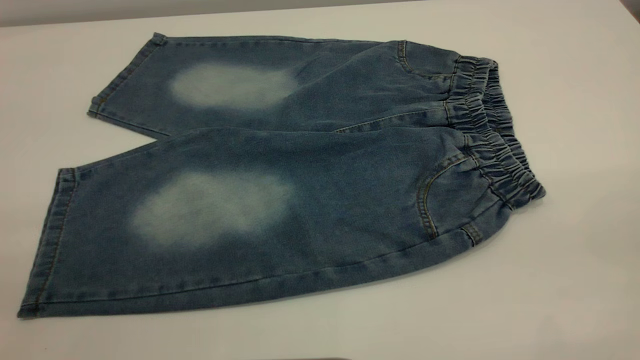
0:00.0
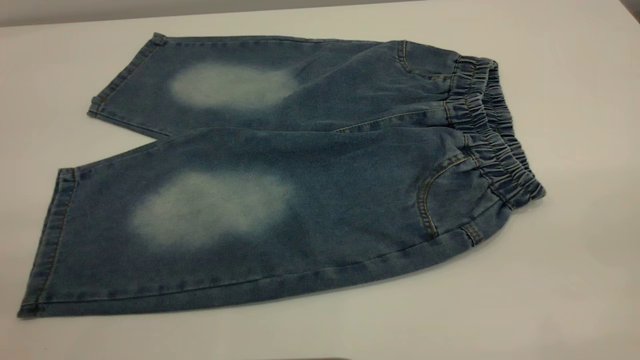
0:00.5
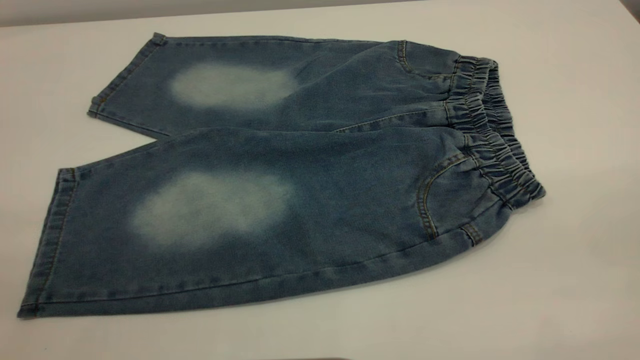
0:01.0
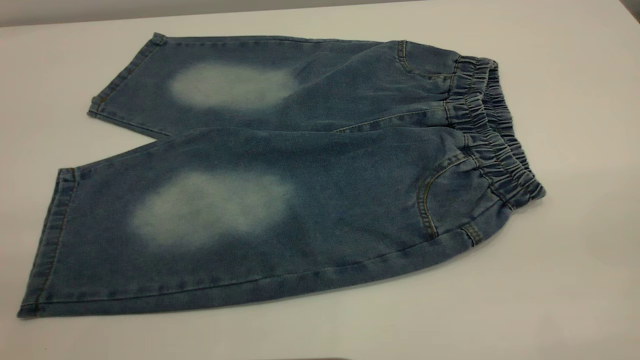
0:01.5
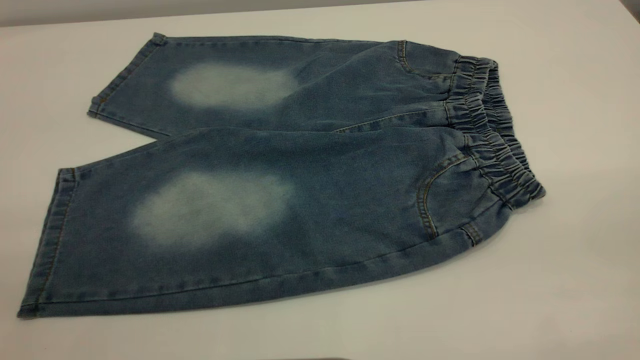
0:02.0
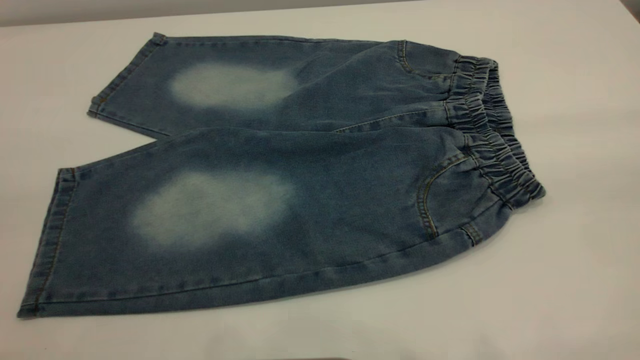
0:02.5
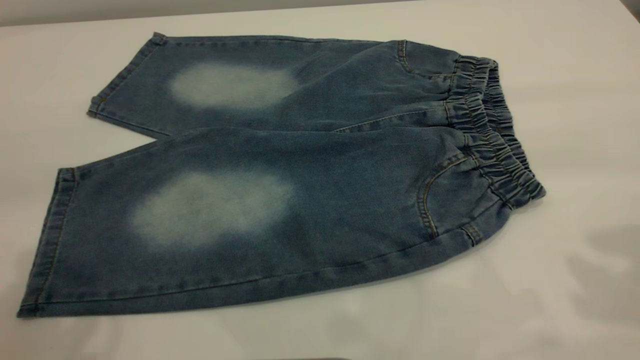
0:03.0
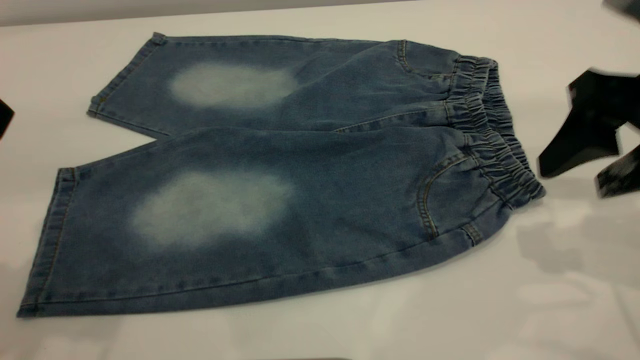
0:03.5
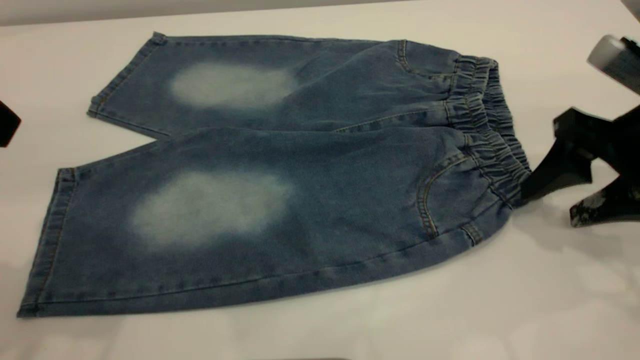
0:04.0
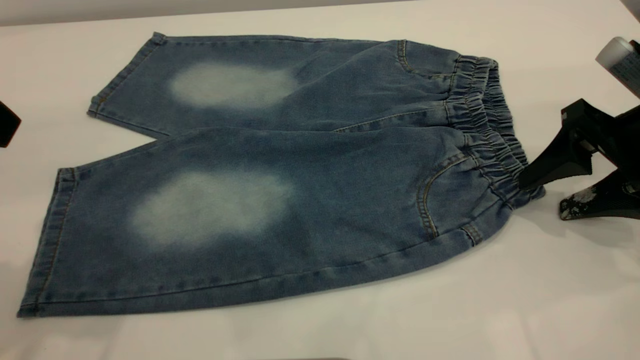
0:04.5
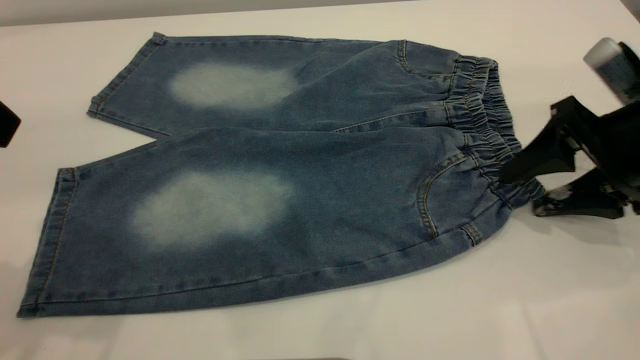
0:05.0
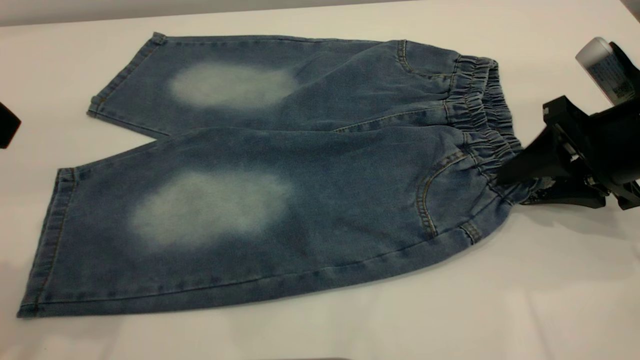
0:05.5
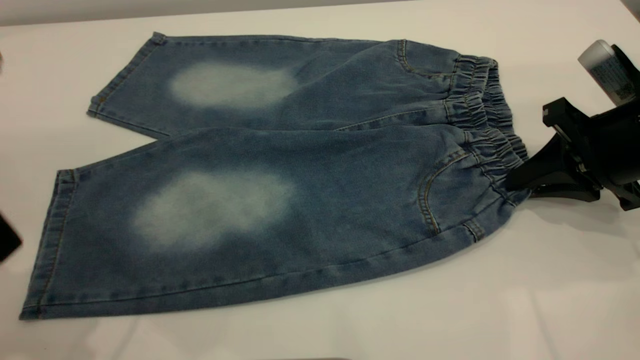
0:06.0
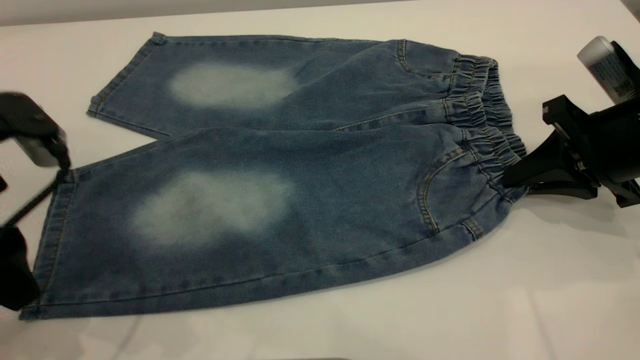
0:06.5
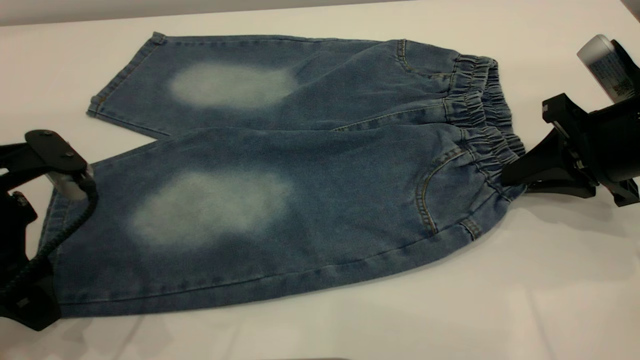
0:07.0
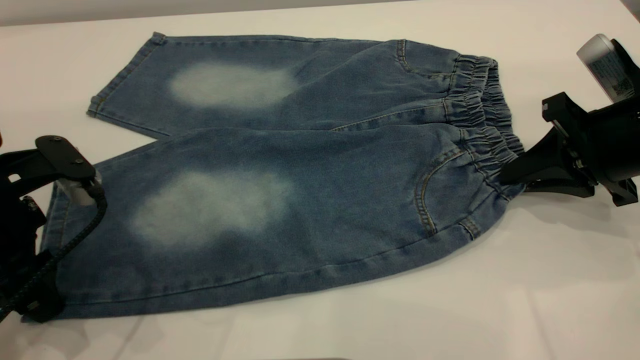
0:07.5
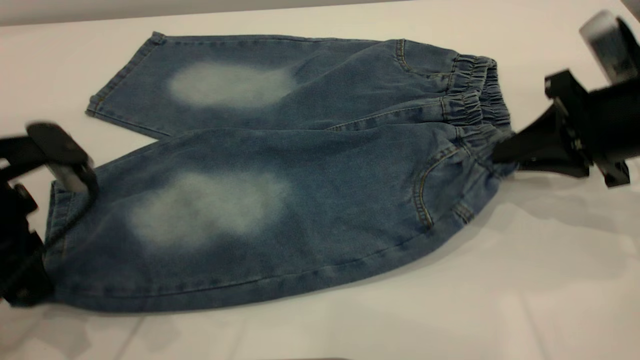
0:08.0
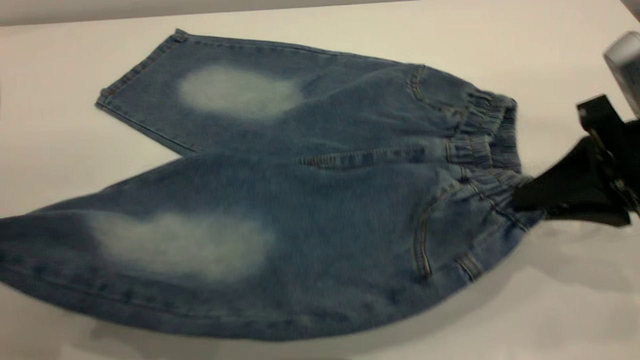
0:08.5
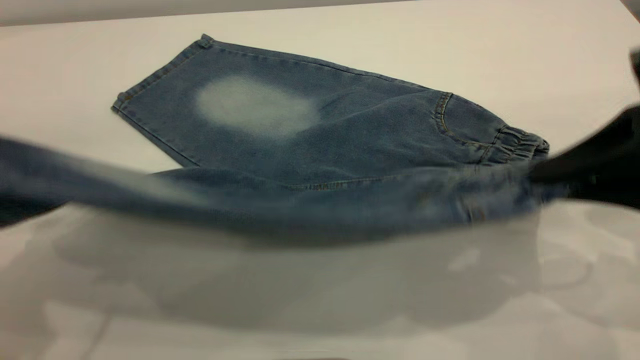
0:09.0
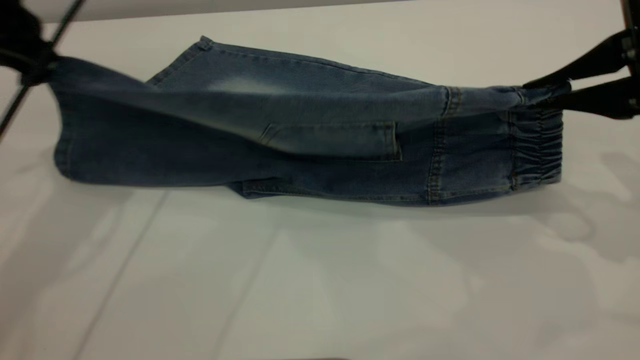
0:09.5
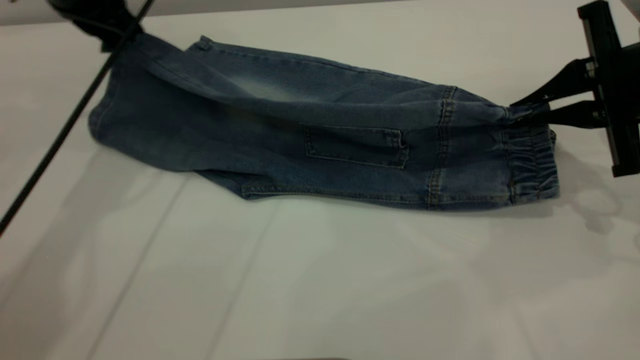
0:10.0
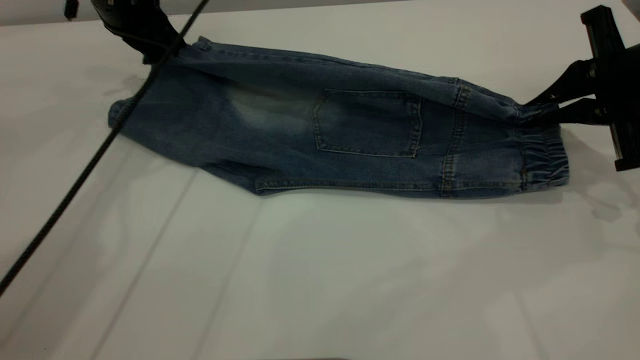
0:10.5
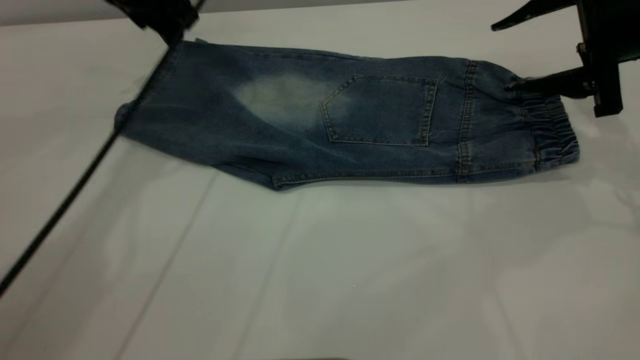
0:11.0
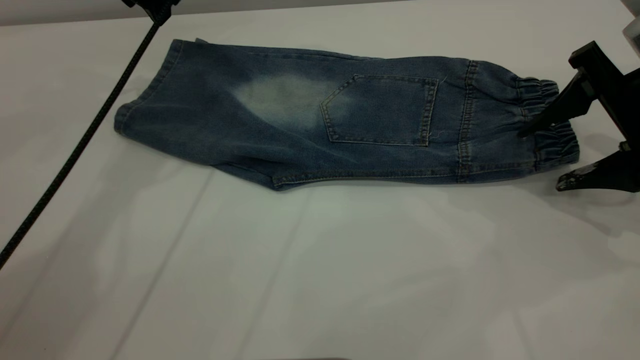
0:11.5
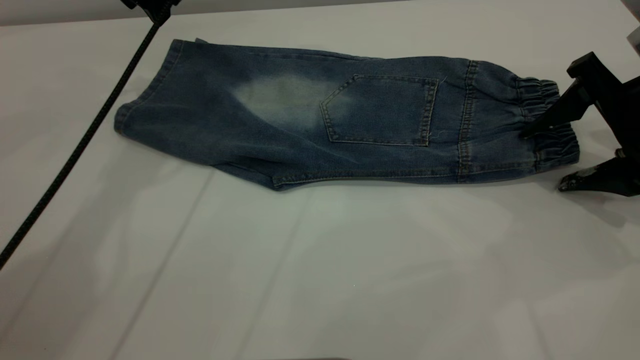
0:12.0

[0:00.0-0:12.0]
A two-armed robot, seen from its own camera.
Step, 0:00.0 to 0:11.0: Fold the bottom of the pants upward.
0:00.0 to 0:02.0: Both grippers stay about where they are.
0:02.0 to 0:04.0: The right gripper shifts some 35 cm forward and downward.
0:04.0 to 0:06.0: The right gripper closes, while the left gripper is displaced downward by roughly 5 cm.
0:06.0 to 0:08.0: The left gripper travels downward by about 10 cm, and closes up.
0:08.0 to 0:10.0: The right gripper reaches about 10 cm backward, then returns, while the left gripper is displaced forward by some 20 cm.
0:10.0 to 0:12.0: The left gripper opens; the right gripper opens.

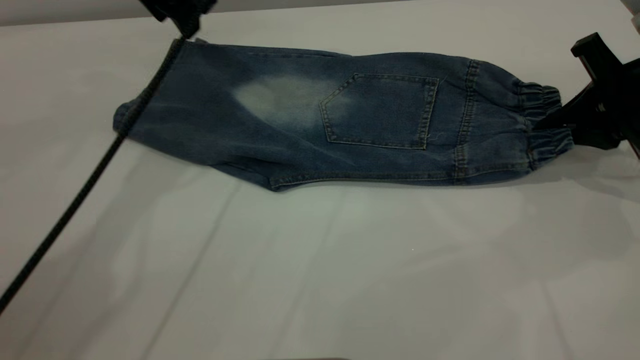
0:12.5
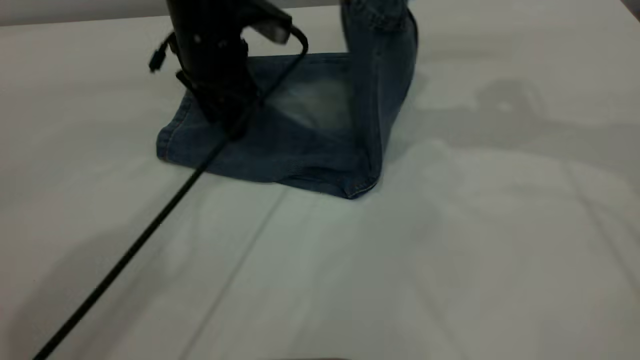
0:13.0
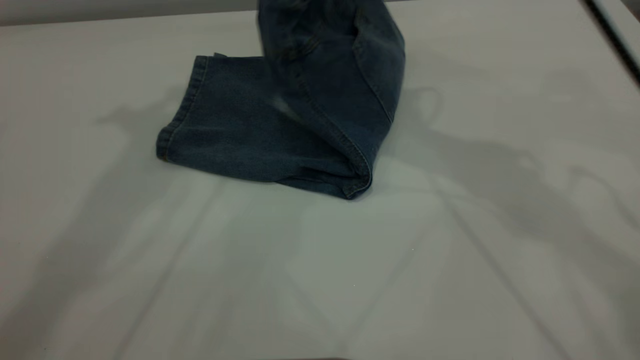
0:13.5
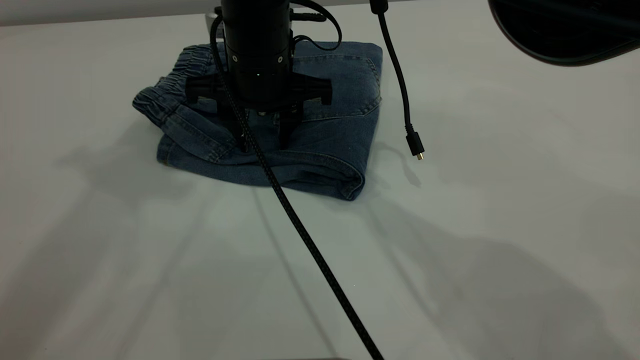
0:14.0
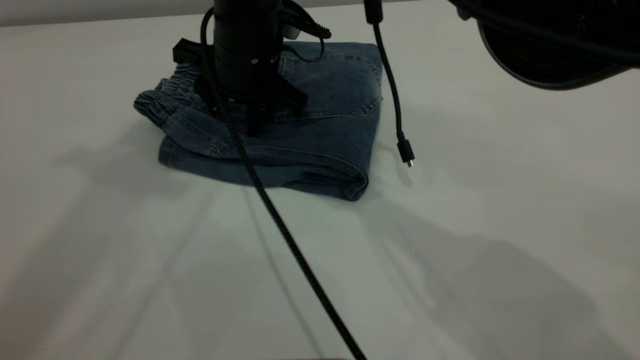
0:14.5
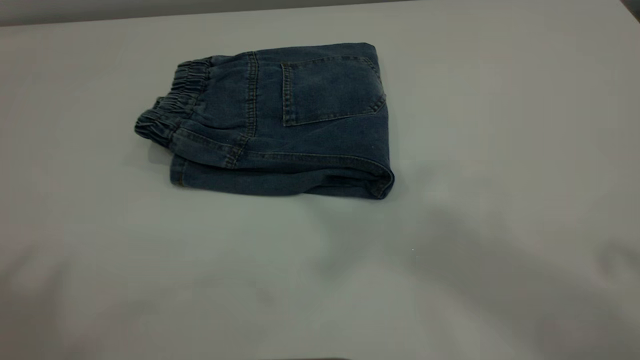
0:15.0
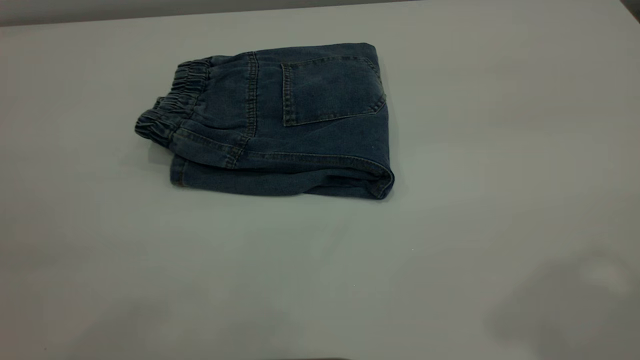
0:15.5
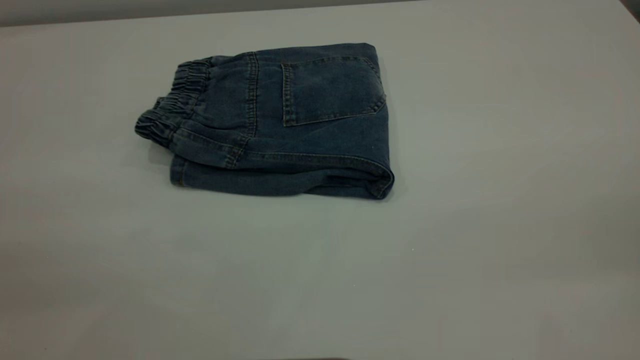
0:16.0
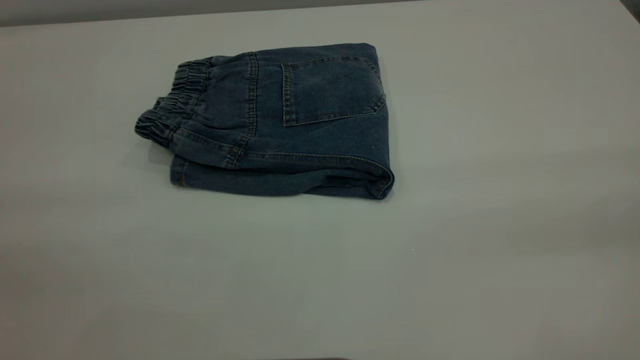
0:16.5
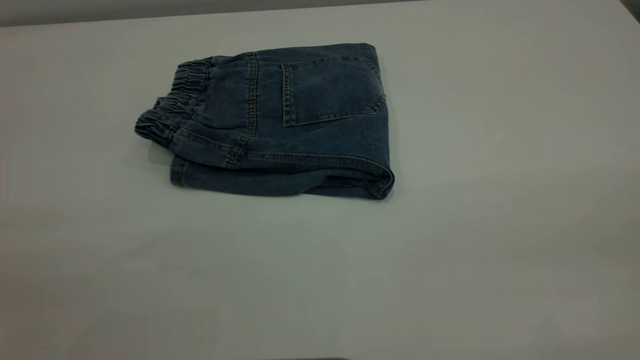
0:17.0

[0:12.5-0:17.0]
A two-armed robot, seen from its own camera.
0:12.5 to 0:14.5: The right gripper moves to the left, approximately 35 cm, and opens up. Meanwhile the left gripper is displaced upward and backward by approximately 30 cm.
0:14.5 to 0:17.0: The right gripper moves to the right, backward and upward, some 60 cm; the left gripper heads backward and downward, covering roughly 35 cm.

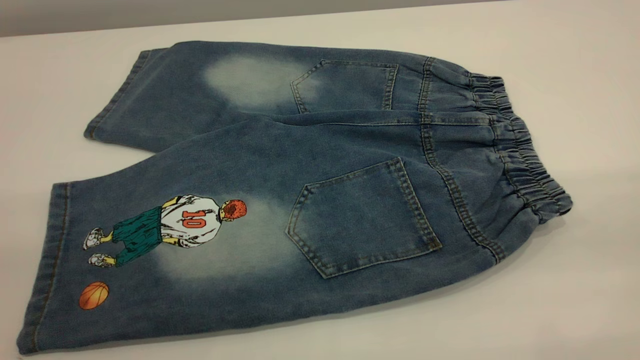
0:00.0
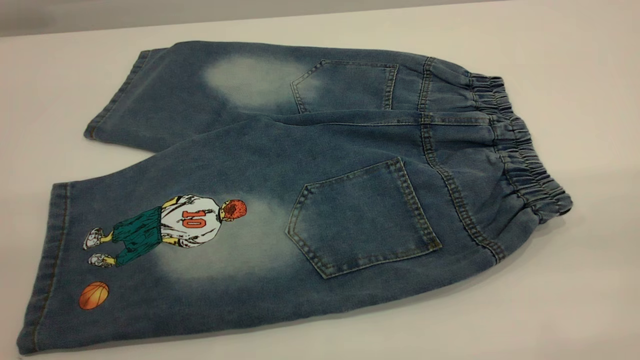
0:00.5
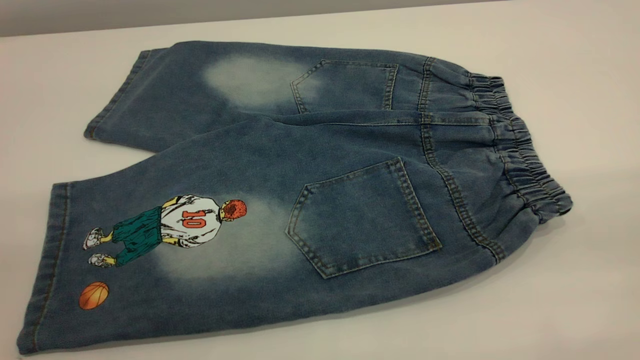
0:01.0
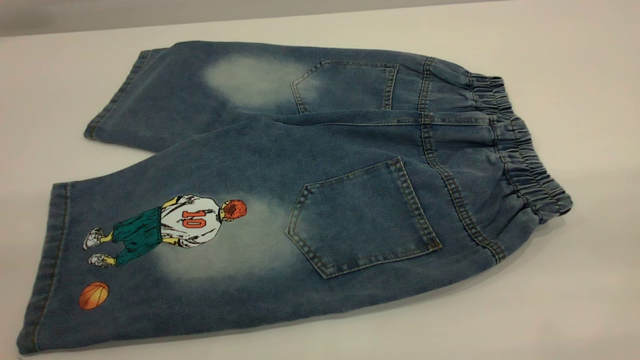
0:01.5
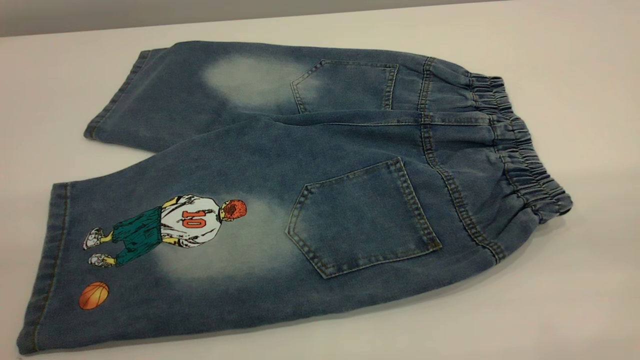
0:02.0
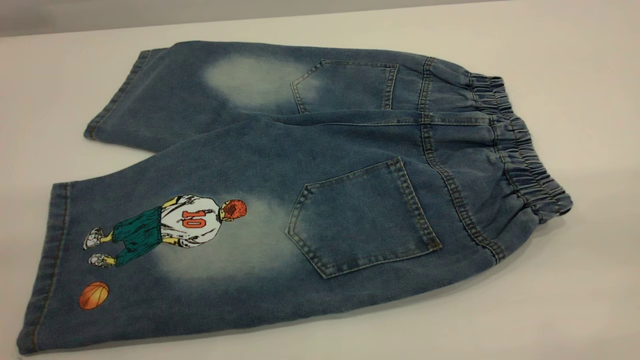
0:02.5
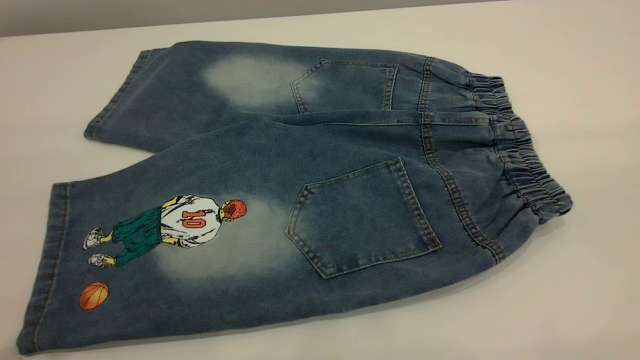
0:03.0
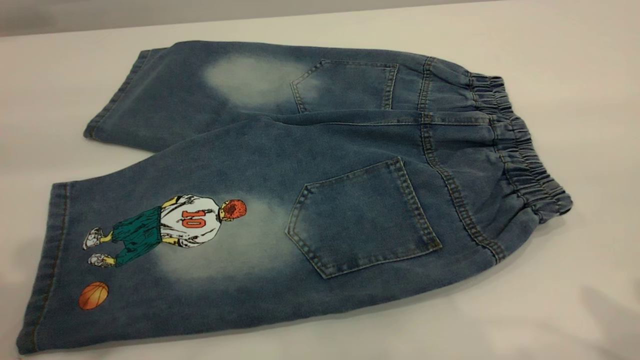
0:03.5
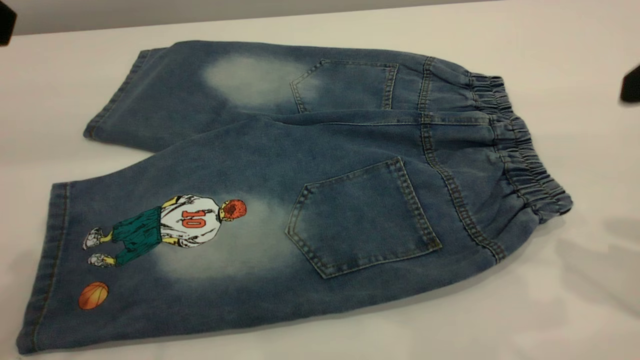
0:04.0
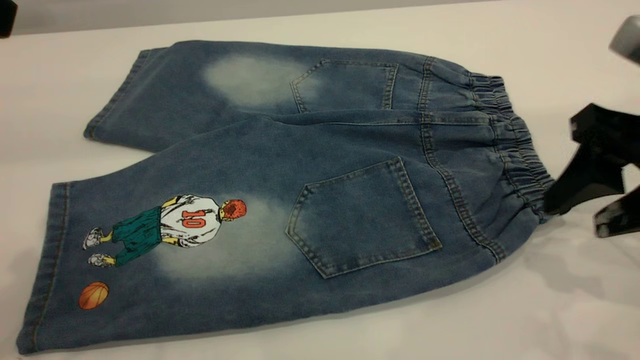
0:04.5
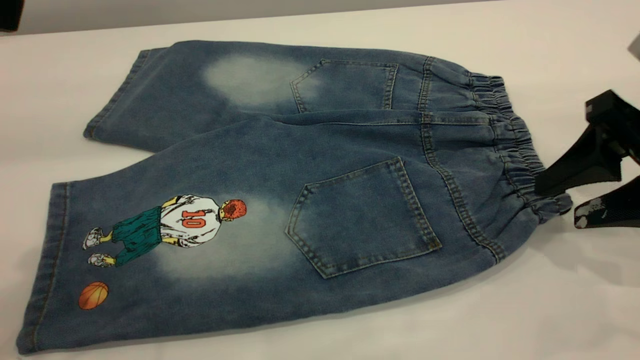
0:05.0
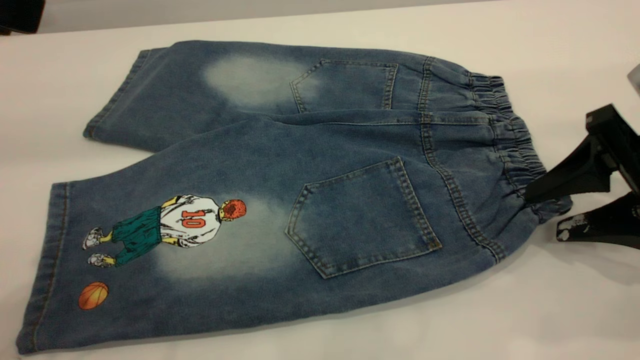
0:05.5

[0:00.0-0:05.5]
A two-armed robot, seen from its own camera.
0:00.0 to 0:02.0: The two grippers keep their place.
0:02.0 to 0:03.5: Both grippers travel together forward, some 15 cm.
0:03.5 to 0:05.5: The right gripper moves downward and forward, roughly 25 cm.
